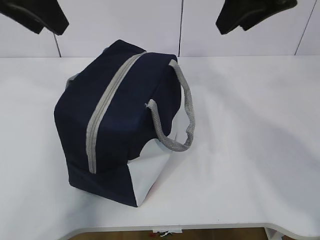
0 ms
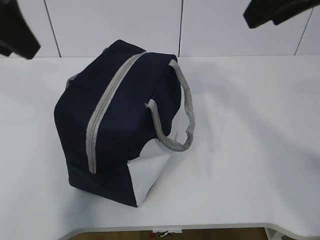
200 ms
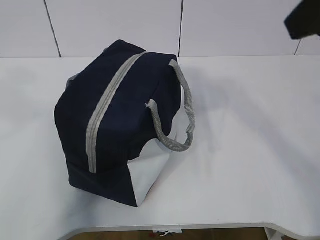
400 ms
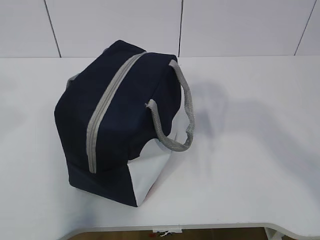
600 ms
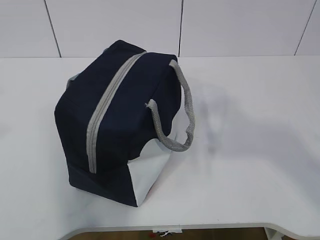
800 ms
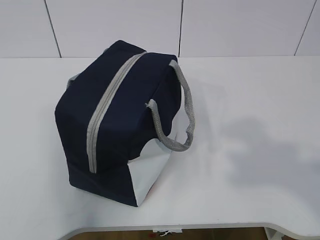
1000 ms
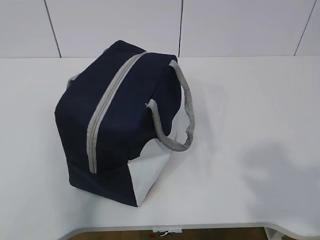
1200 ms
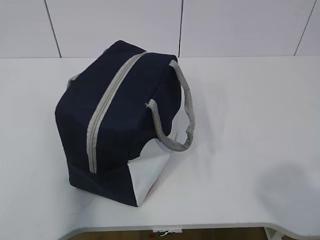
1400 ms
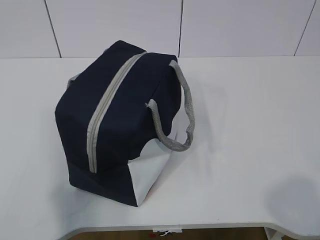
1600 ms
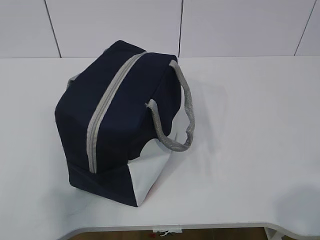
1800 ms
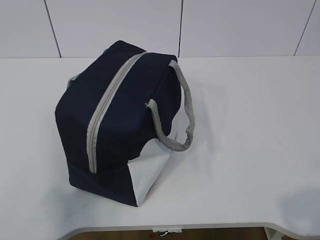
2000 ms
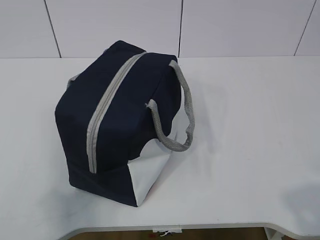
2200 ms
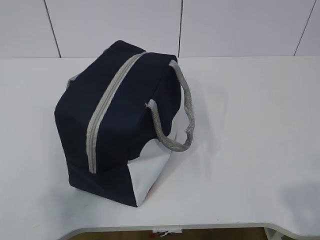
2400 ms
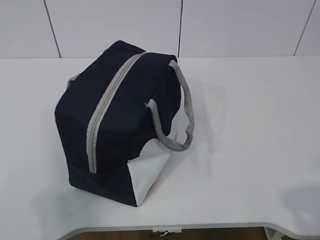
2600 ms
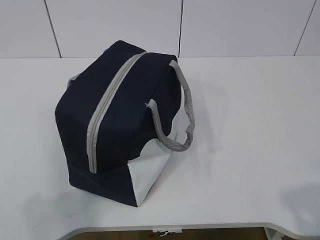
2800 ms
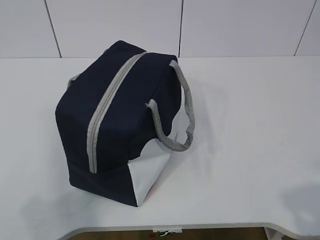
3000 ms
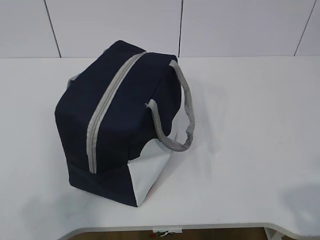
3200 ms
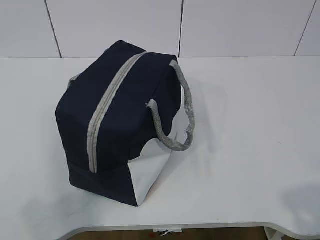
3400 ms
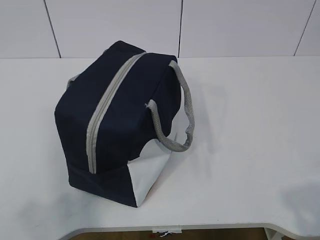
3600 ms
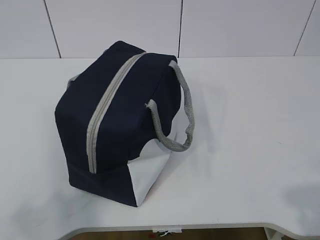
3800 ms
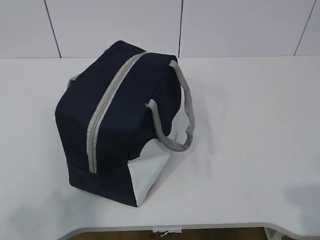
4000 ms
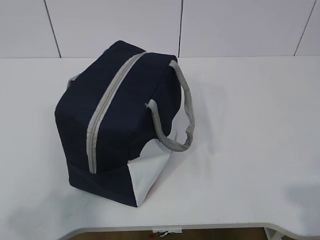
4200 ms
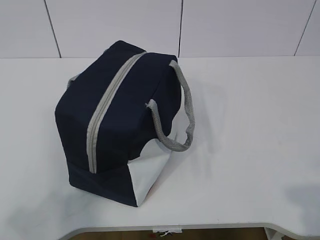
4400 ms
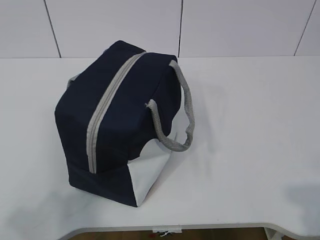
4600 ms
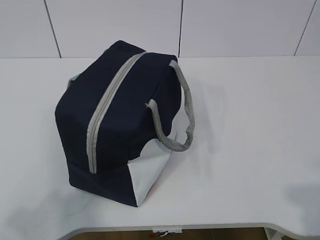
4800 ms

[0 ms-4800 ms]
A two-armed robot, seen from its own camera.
0 ms to 1600 ms: The right gripper shifts about 35 cm backward, while the left gripper heads backward and to the left, covering roughly 35 cm.
